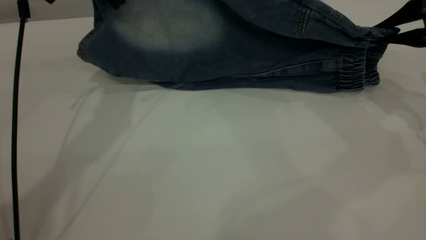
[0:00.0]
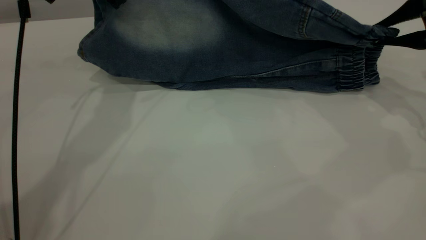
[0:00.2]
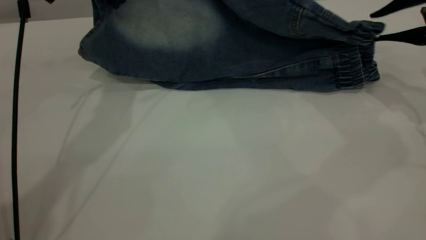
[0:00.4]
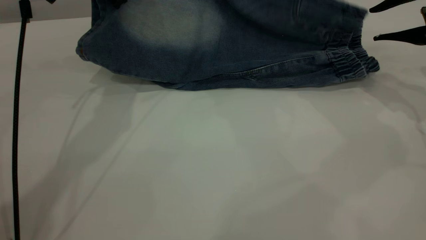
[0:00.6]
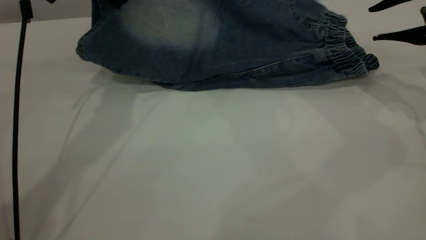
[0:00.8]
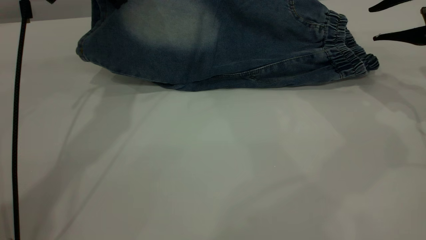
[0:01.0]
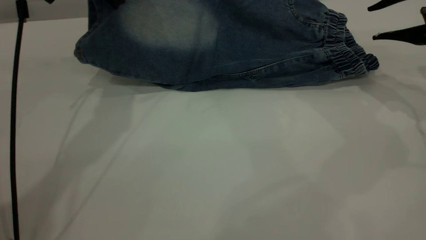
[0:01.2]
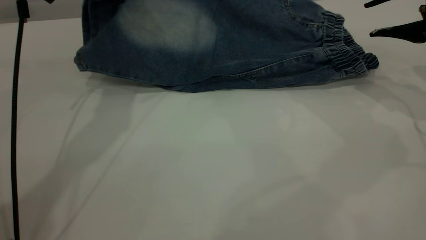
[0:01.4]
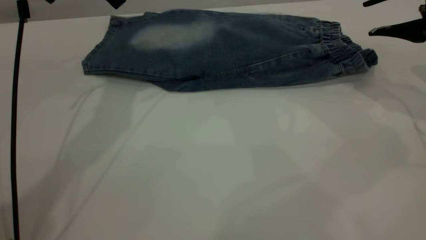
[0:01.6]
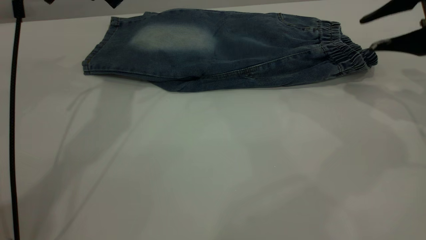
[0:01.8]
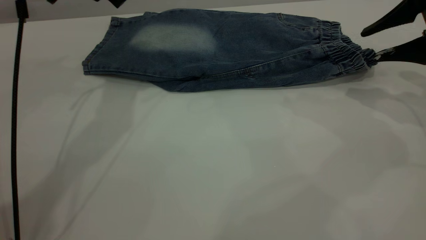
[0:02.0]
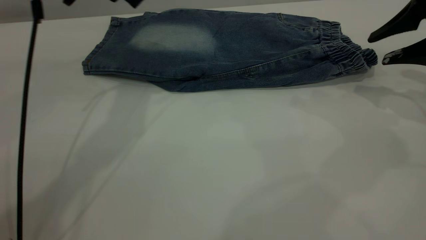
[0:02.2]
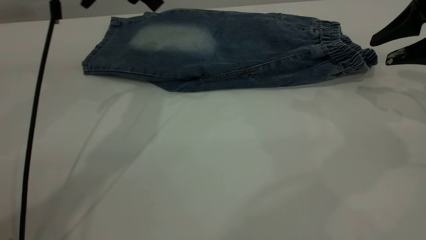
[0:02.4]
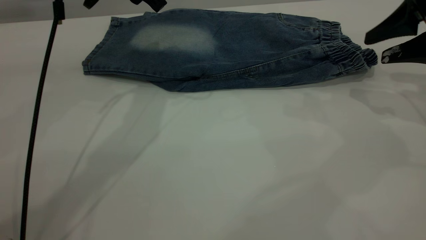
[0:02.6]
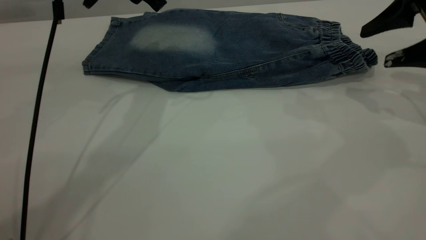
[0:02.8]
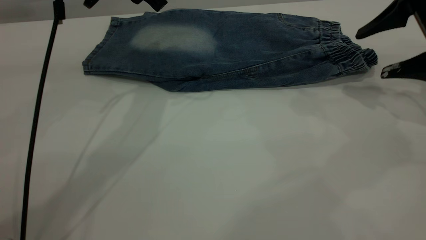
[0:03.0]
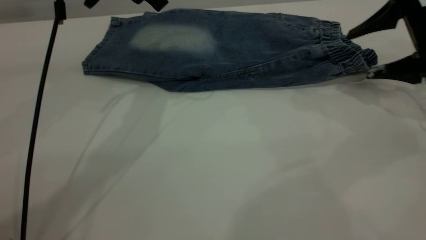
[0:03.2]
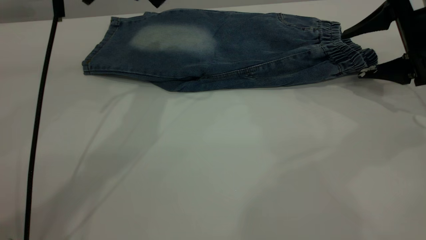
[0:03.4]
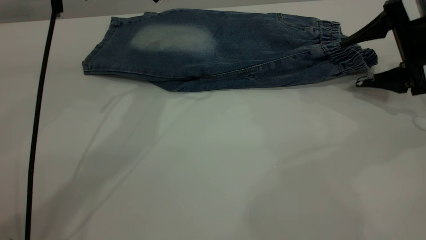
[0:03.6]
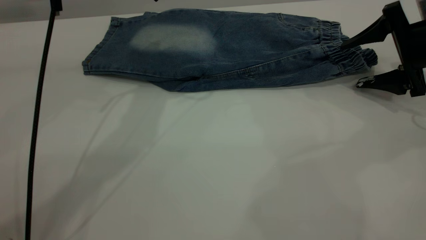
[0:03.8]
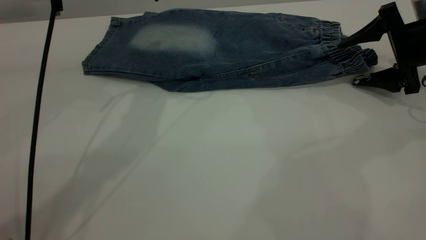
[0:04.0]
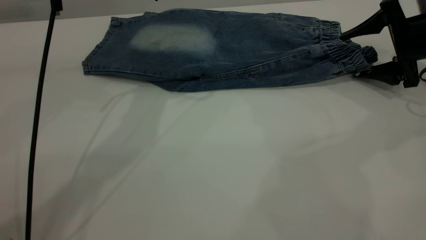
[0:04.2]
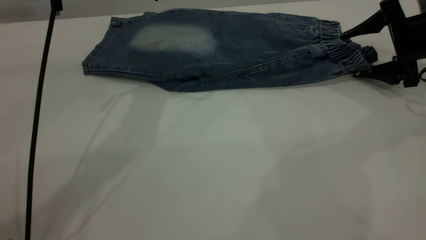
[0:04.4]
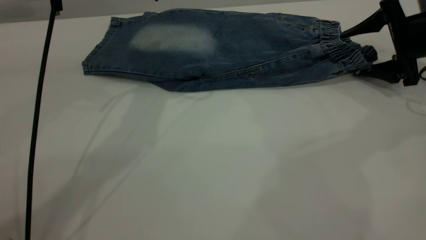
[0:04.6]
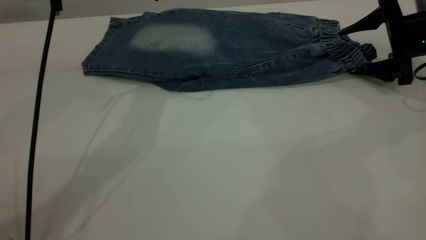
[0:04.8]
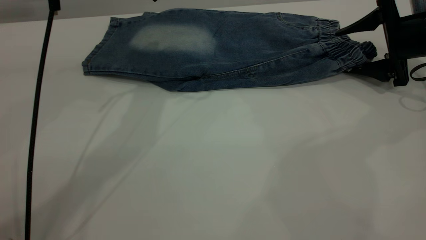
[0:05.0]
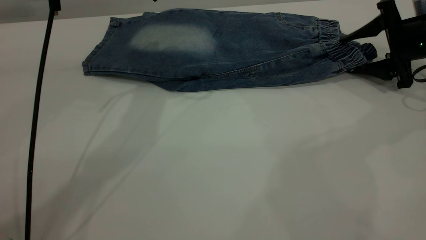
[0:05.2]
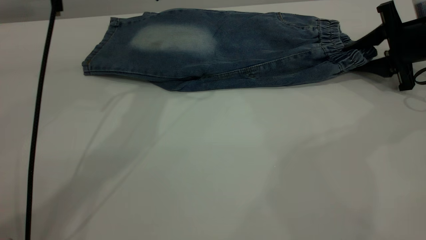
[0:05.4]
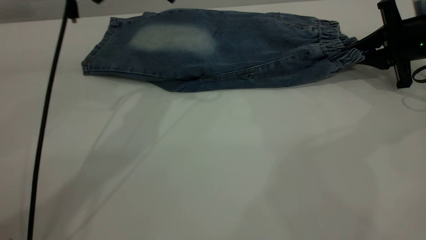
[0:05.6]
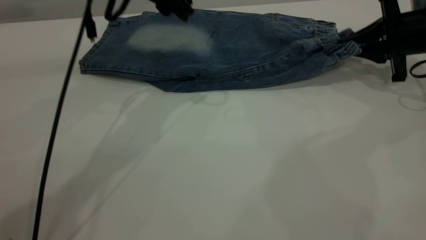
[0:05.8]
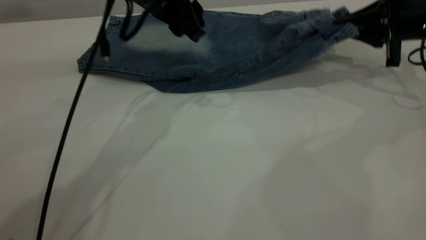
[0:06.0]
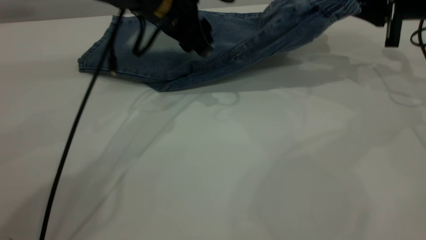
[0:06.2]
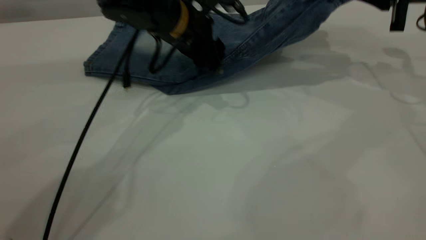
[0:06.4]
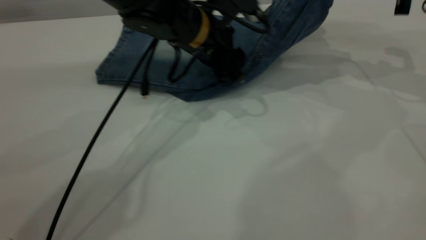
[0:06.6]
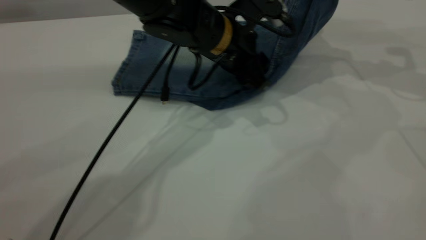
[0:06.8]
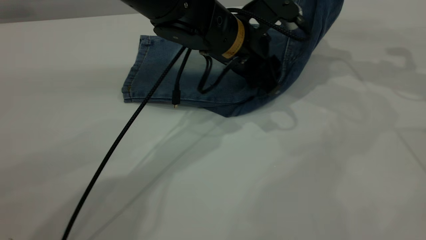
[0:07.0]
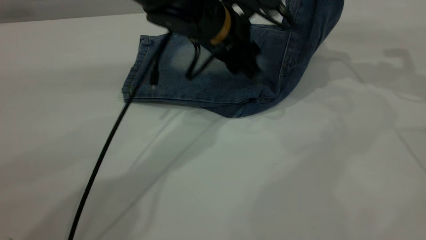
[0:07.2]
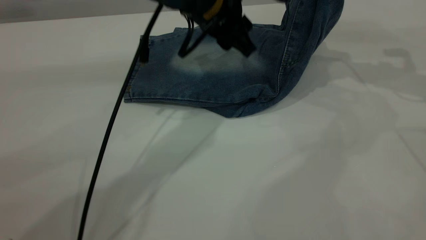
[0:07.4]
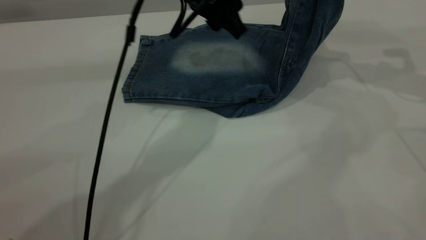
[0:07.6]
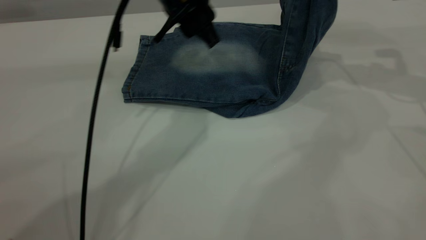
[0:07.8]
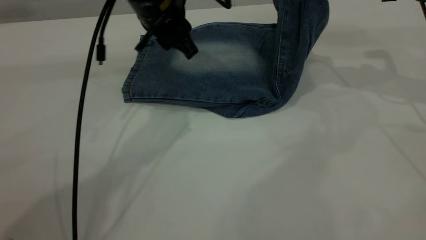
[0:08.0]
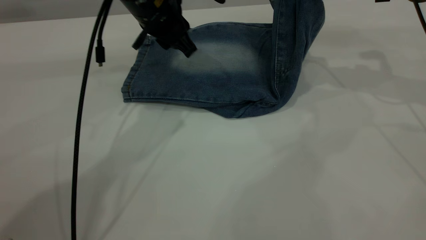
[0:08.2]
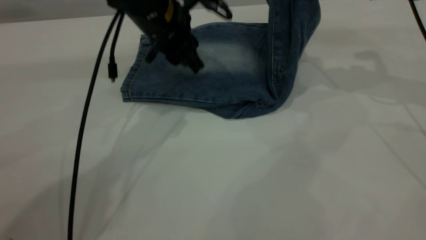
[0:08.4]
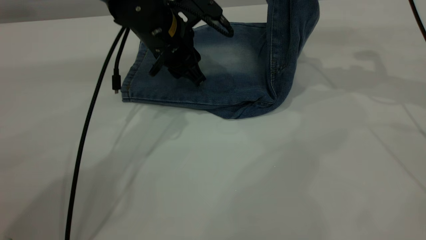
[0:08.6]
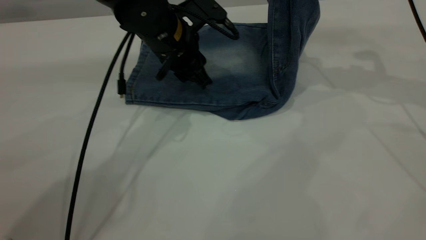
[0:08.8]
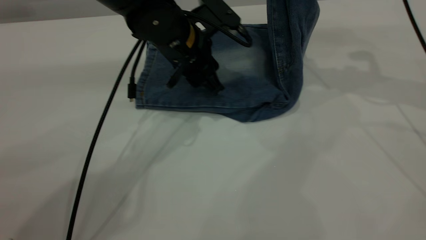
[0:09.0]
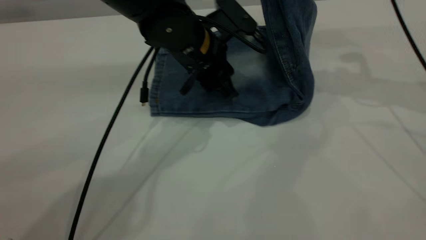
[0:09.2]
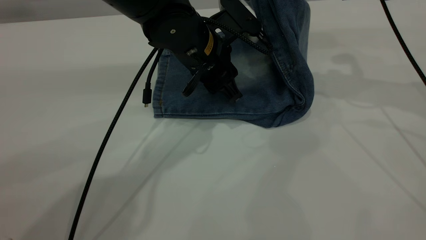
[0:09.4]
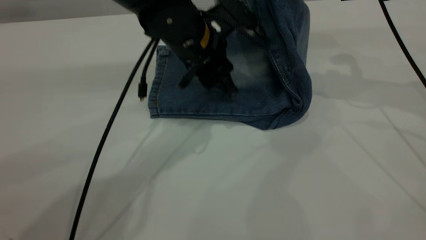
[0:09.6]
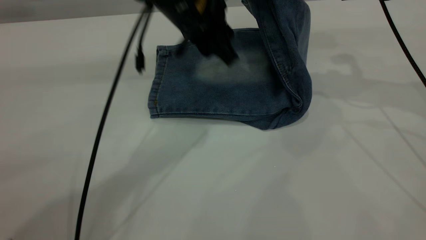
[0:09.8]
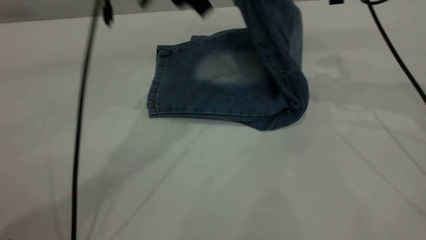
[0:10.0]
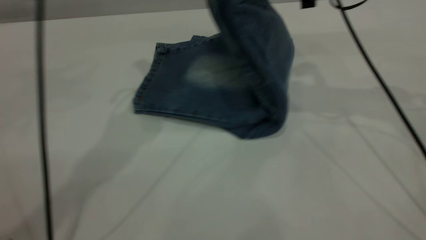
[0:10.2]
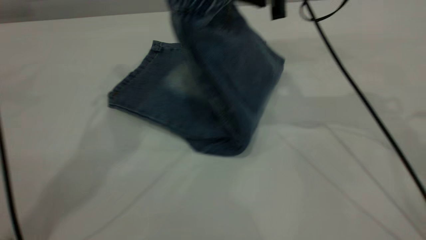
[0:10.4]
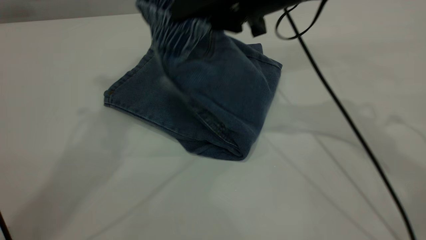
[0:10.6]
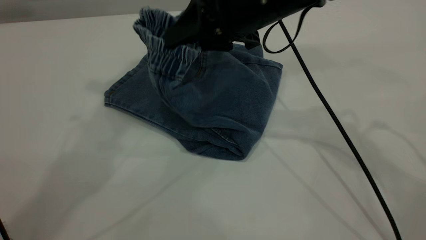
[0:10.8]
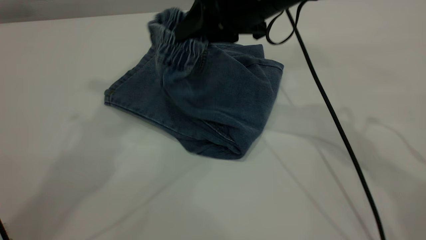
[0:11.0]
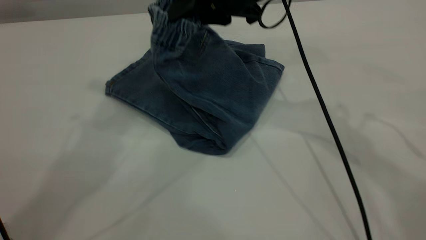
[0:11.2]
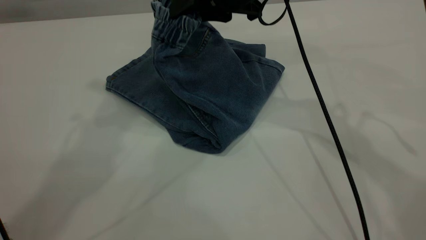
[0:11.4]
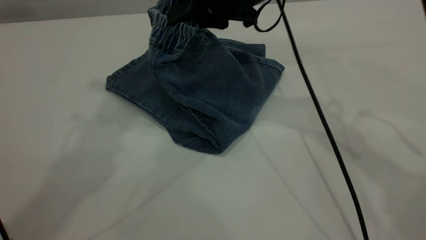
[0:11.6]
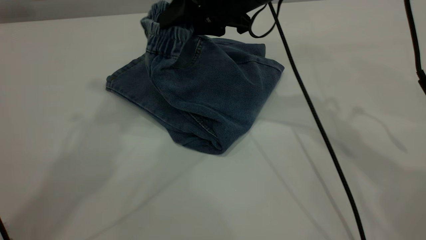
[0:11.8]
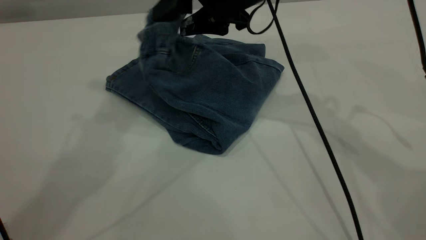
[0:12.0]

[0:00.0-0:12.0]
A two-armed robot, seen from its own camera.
0:00.0 to 0:01.6: The right gripper opens its fingers, while the left gripper opens its fingers.
0:01.6 to 0:03.0: The right gripper opens. The left gripper goes about 5 cm to the right.
0:03.0 to 0:04.4: The right gripper moves downward and forward, roughly 5 cm.
0:04.4 to 0:06.0: The right gripper closes up. The left gripper goes approximately 5 cm downward.
0:06.0 to 0:07.6: The left gripper travels to the right by about 5 cm. The right gripper travels upward by approximately 10 cm.
0:07.6 to 0:09.0: The right gripper shifts approximately 5 cm to the left, while the left gripper heads downward, covering roughly 10 cm.
0:09.0 to 0:10.4: The left gripper moves upward, some 30 cm, while the right gripper goes approximately 15 cm to the left.
0:10.4 to 0:12.0: The right gripper shifts roughly 5 cm to the left, and opens its fingers, while the left gripper is displaced upward by about 5 cm.

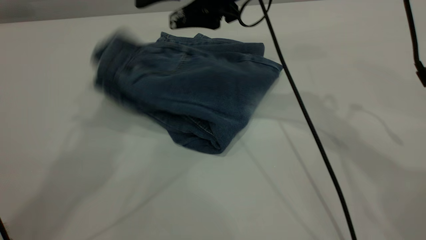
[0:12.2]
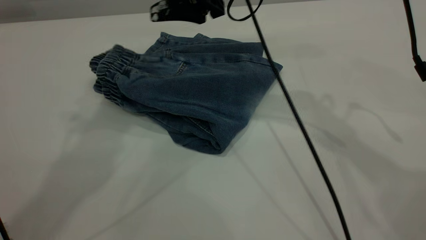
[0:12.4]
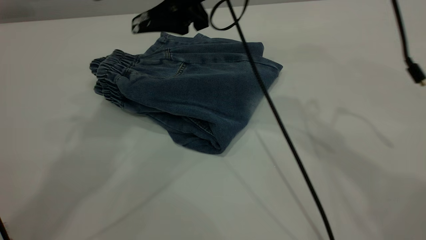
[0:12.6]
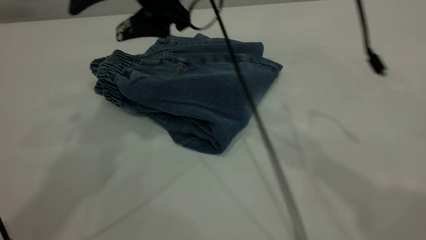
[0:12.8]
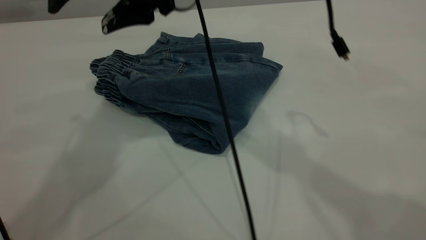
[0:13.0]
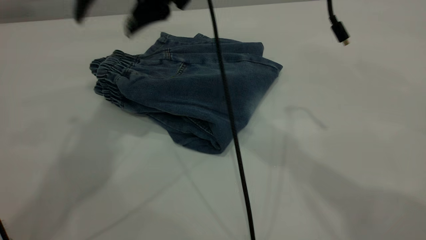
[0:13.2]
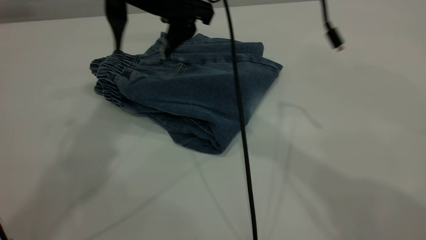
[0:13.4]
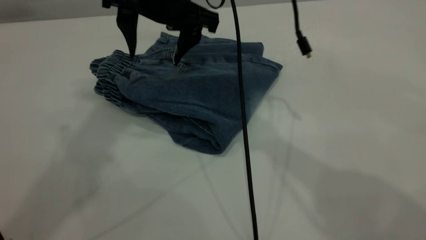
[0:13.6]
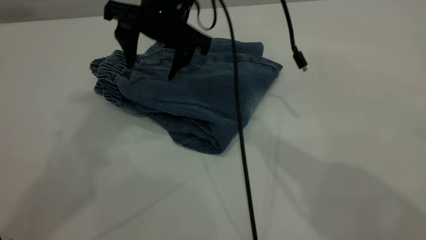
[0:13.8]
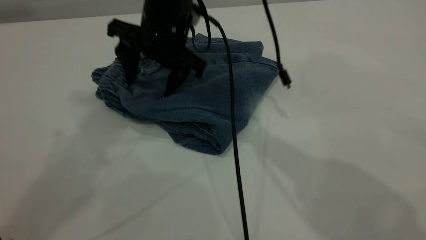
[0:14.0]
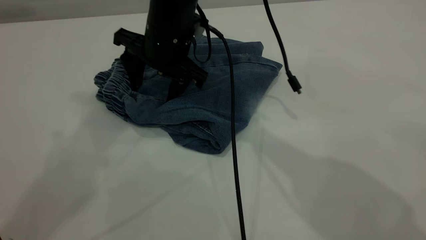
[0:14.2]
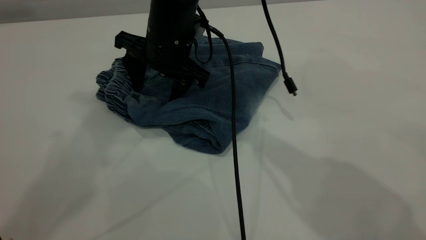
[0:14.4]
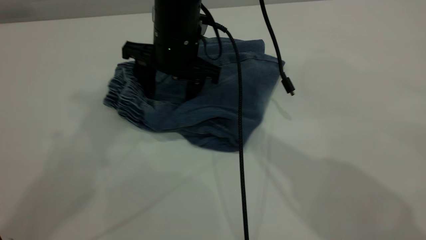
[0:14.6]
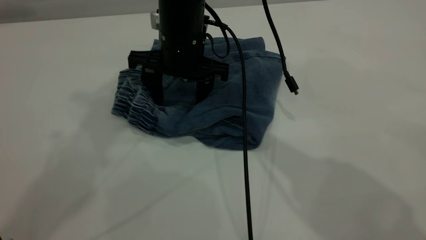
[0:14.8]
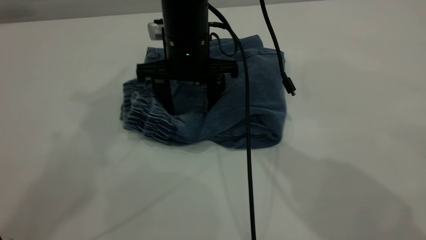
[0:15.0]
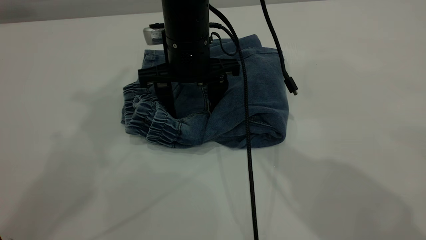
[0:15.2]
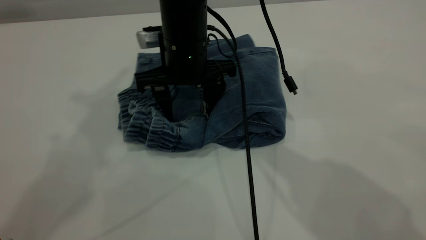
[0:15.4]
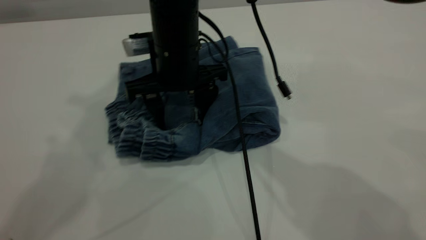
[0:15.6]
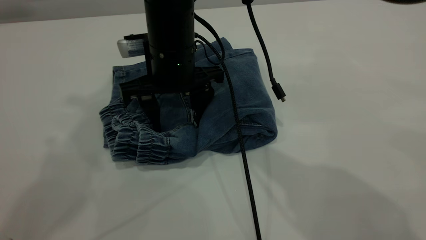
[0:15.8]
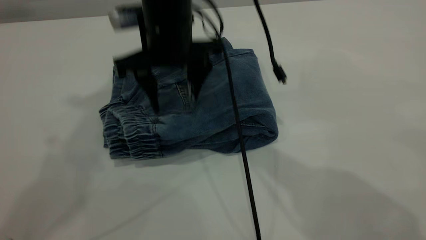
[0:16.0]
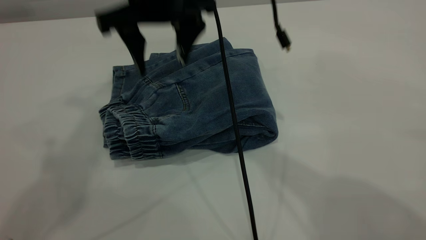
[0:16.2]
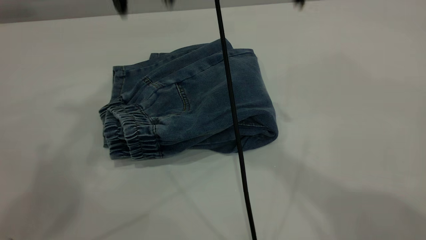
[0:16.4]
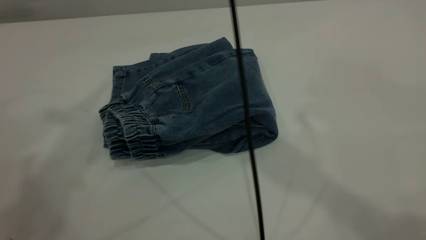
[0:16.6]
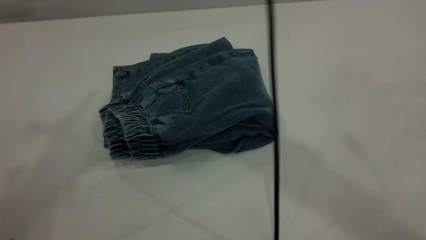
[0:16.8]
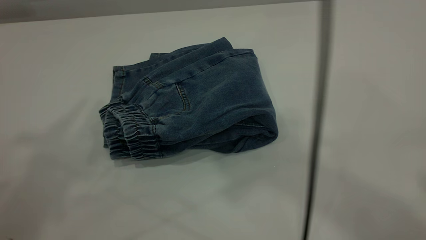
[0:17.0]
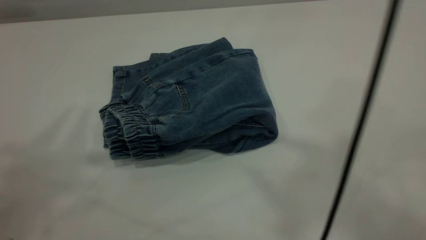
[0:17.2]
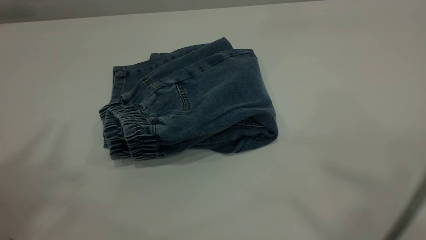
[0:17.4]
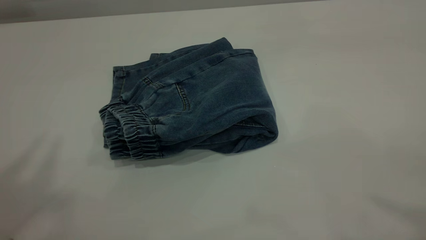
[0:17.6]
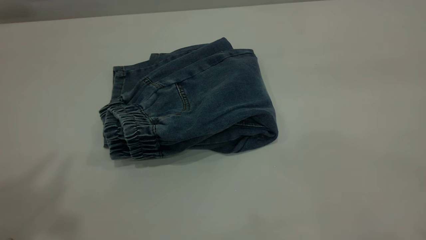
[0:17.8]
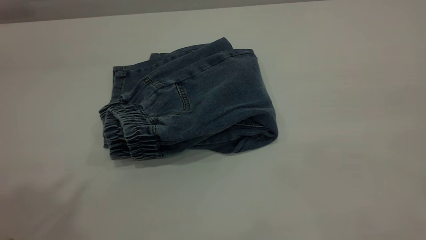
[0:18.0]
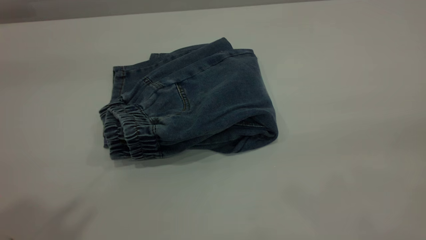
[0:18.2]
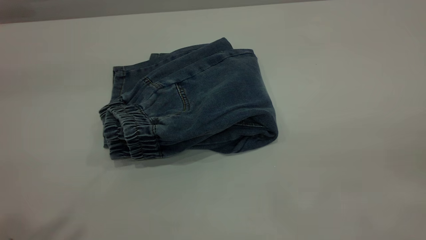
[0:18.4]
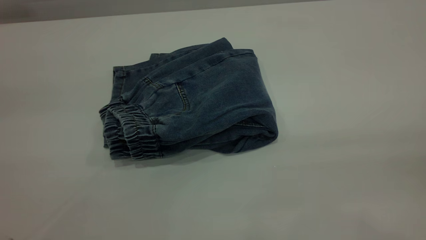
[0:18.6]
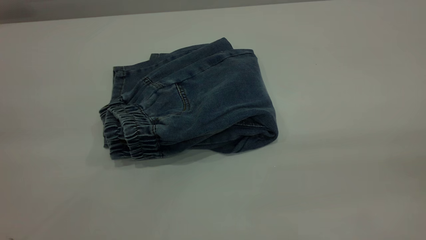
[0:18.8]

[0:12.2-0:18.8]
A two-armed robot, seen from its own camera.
0:12.2 to 0:13.8: The right gripper is displaced to the left by roughly 10 cm.
0:13.8 to 0:15.4: The right gripper travels downward by about 5 cm.
0:15.4 to 0:17.2: The right gripper moves upward and backward, approximately 50 cm; the left gripper is displaced backward, upward and to the left by some 15 cm.
0:17.2 to 0:18.8: The right gripper goes about 35 cm downward, backward and to the right.
